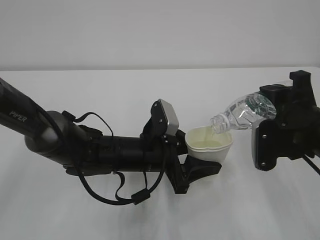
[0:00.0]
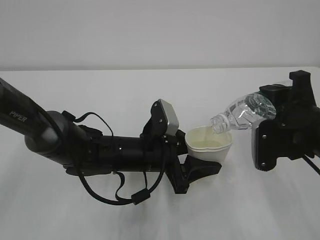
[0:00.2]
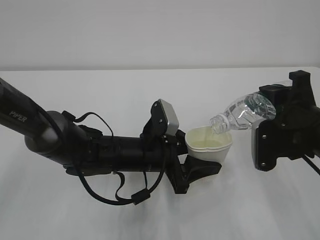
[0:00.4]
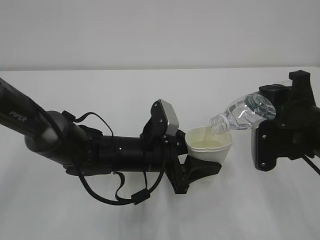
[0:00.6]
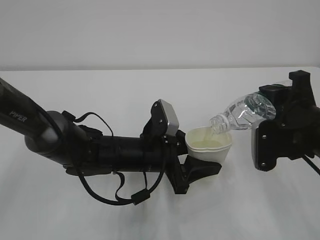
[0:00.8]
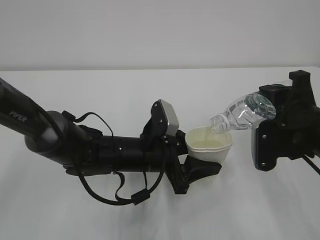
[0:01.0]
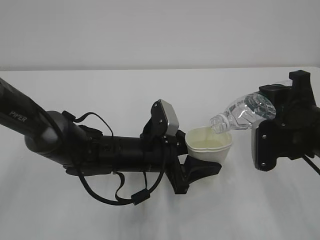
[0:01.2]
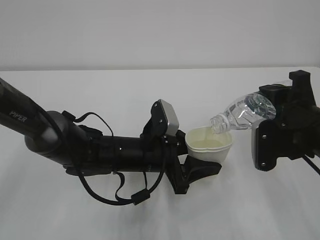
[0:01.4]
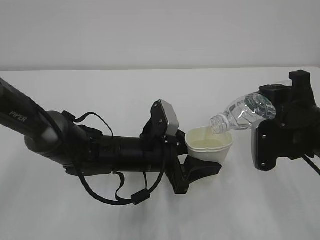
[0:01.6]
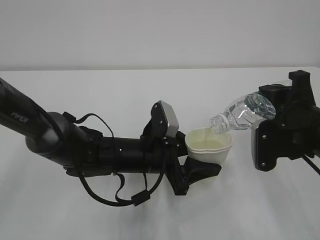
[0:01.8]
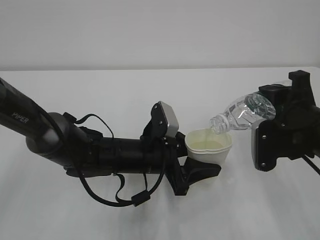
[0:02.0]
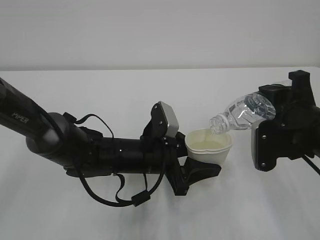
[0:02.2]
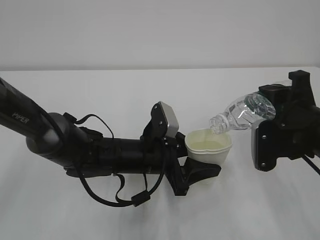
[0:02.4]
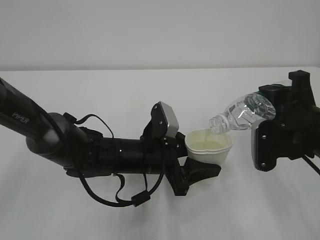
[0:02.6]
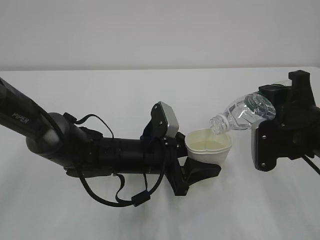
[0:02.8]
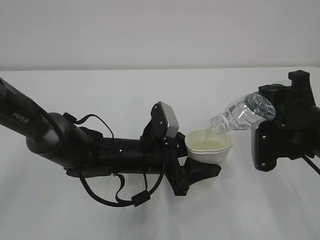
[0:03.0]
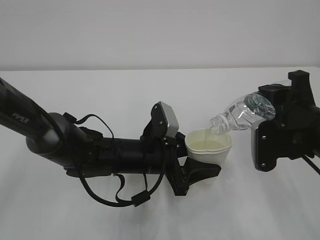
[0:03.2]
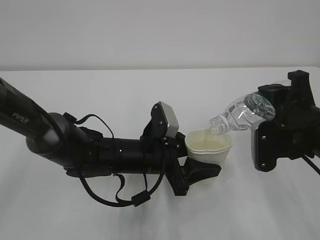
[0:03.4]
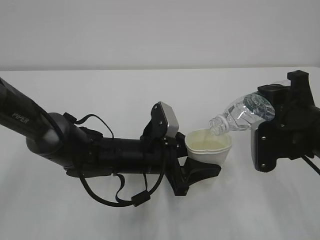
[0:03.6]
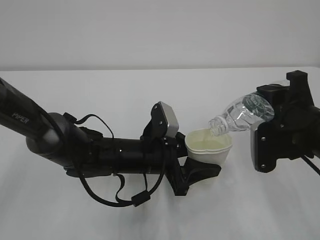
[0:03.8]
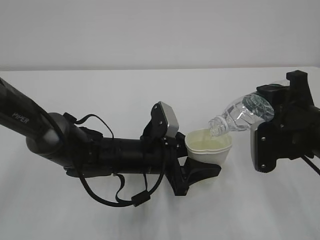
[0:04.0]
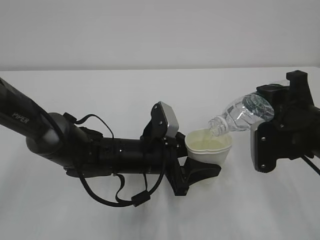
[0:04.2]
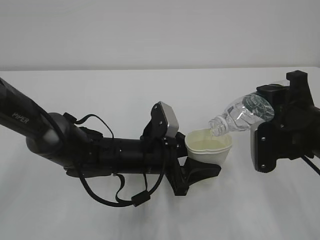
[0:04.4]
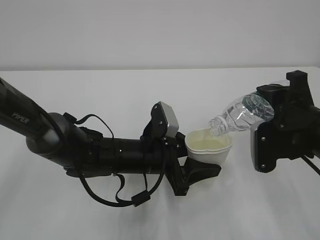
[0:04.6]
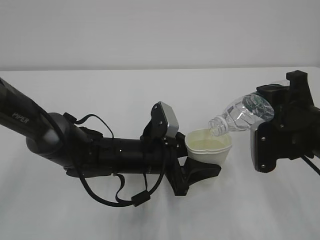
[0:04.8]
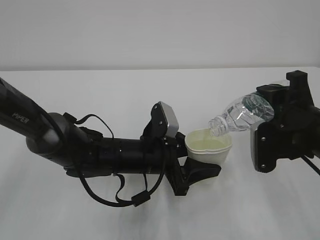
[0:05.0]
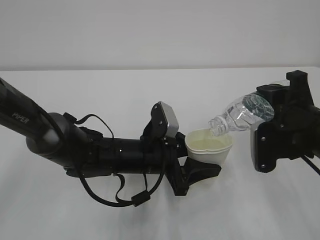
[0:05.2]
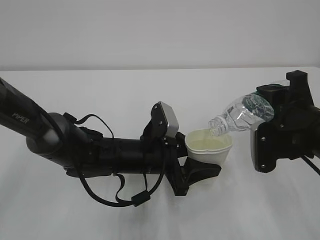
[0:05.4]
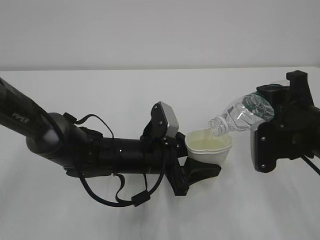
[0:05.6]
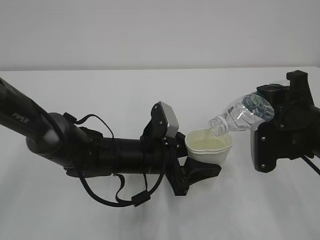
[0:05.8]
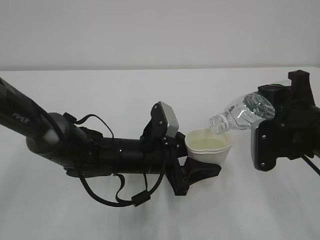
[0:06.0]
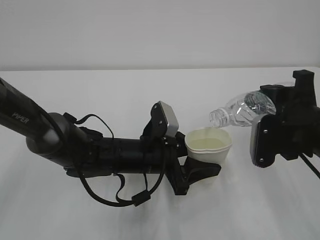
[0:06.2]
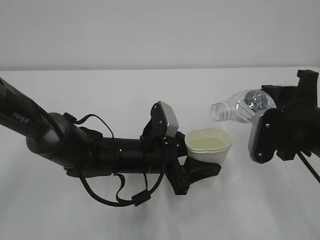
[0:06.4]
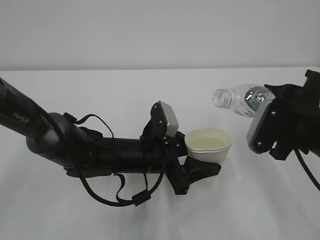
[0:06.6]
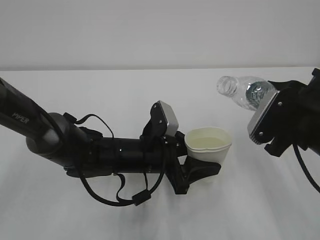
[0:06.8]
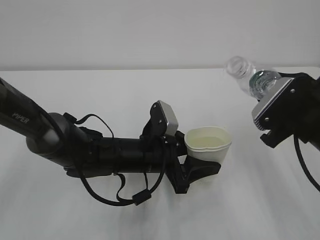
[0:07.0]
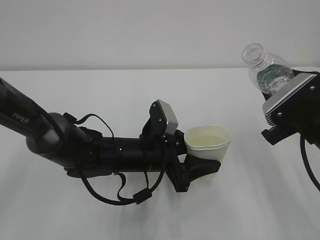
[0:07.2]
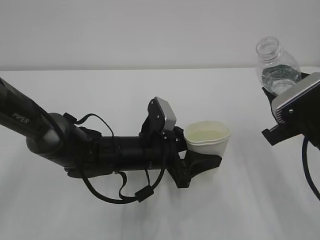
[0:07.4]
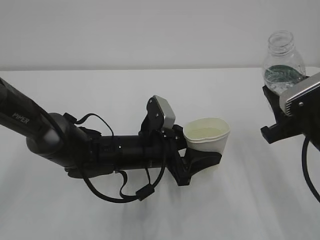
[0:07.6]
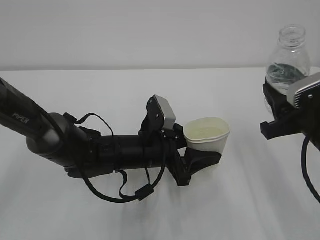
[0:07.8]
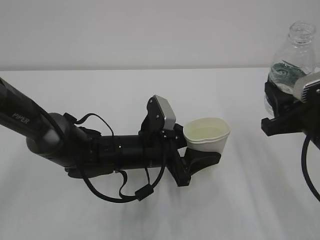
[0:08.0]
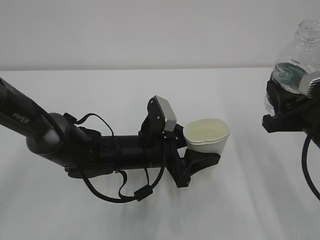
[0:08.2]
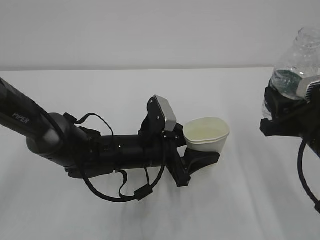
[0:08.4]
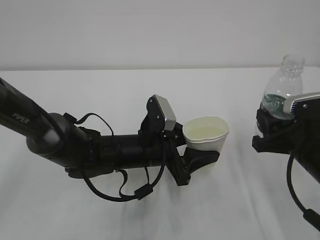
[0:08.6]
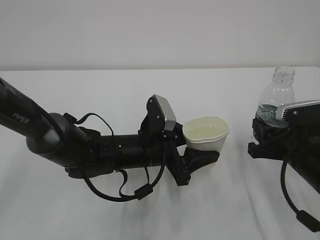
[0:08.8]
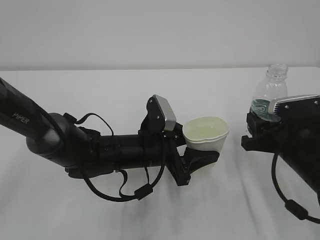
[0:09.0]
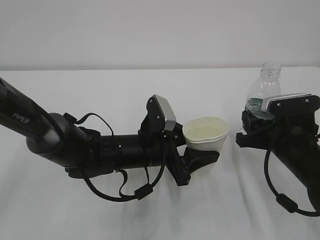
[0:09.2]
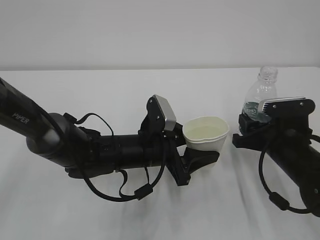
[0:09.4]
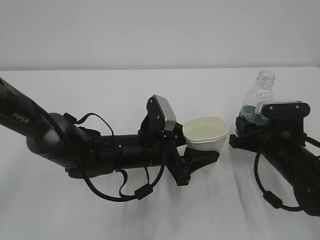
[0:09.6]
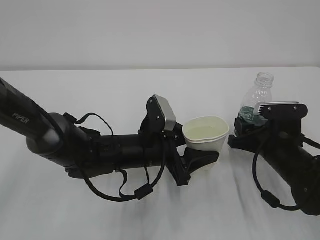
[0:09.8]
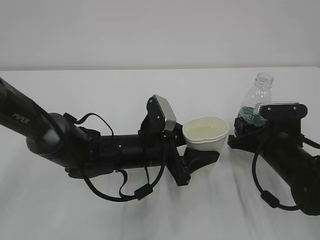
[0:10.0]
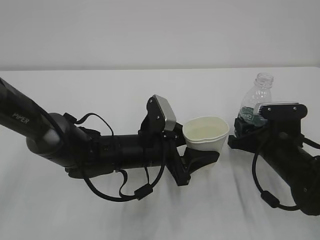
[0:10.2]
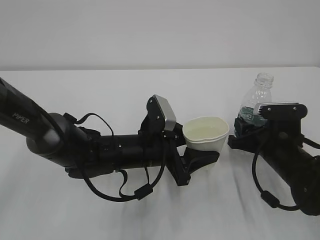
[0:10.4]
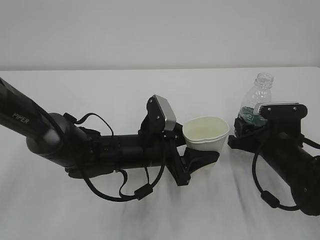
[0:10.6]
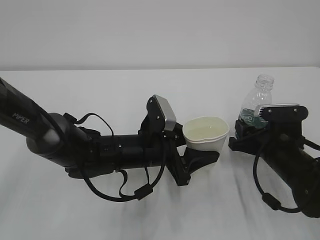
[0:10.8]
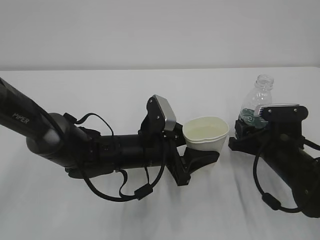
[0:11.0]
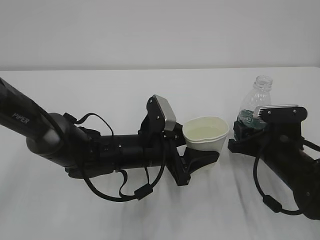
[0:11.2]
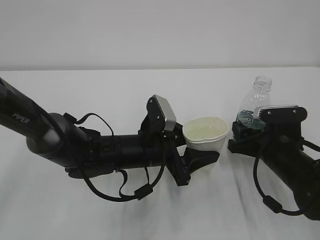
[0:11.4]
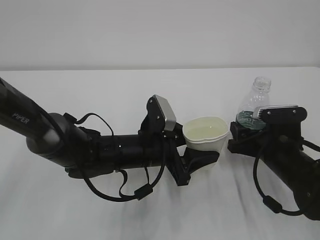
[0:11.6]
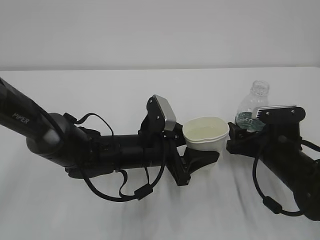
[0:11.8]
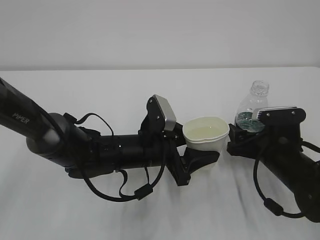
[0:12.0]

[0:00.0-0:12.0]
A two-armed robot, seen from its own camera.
0:00.0 to 0:06.0: Neither gripper changes place.
0:07.6 to 0:09.0: The right gripper travels downward by about 5 cm.
0:09.0 to 0:10.4: The grippers stay close to where they were, moving slightly.
0:10.4 to 0:12.0: The right gripper opens.

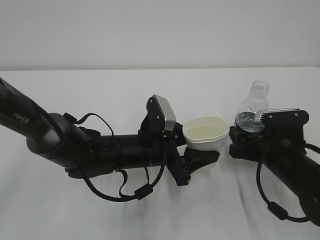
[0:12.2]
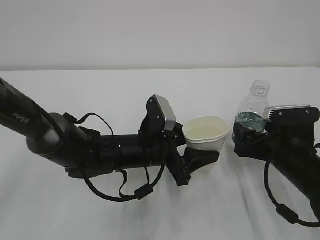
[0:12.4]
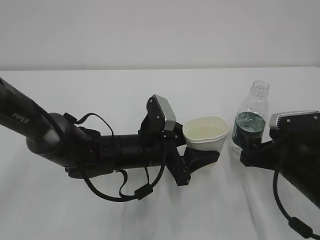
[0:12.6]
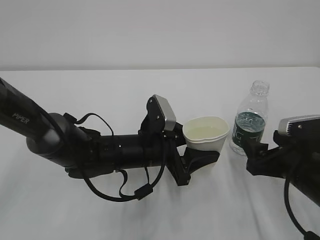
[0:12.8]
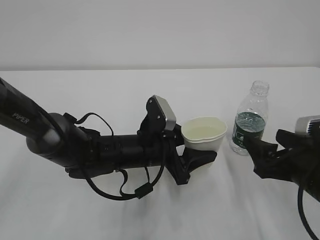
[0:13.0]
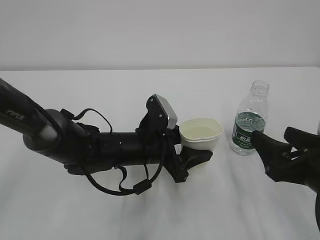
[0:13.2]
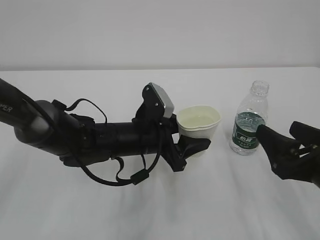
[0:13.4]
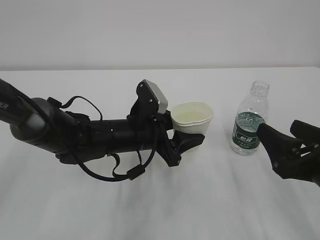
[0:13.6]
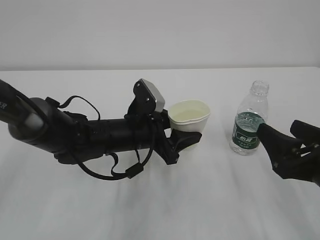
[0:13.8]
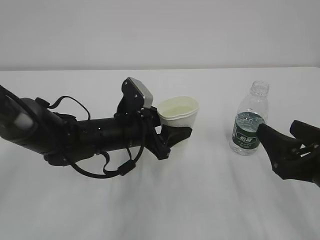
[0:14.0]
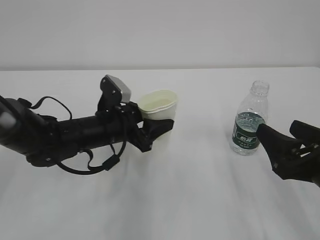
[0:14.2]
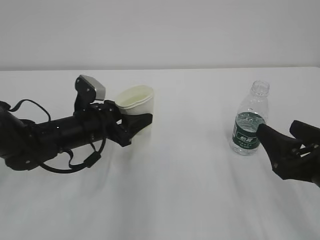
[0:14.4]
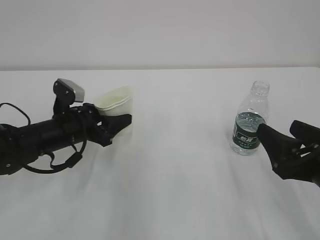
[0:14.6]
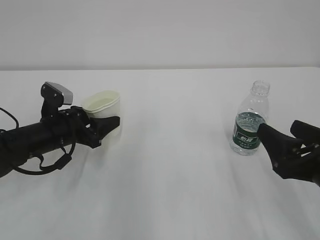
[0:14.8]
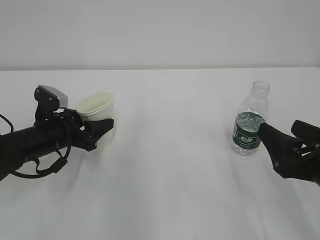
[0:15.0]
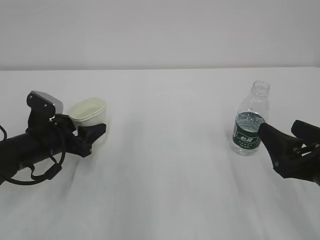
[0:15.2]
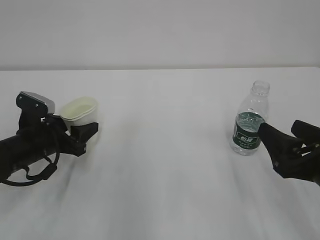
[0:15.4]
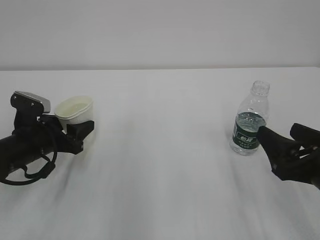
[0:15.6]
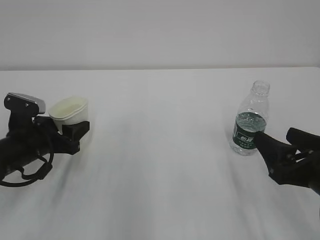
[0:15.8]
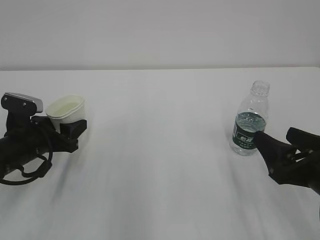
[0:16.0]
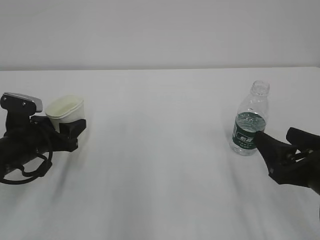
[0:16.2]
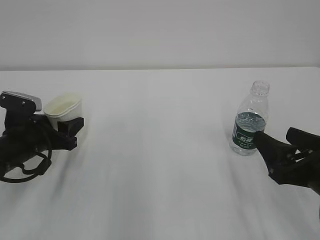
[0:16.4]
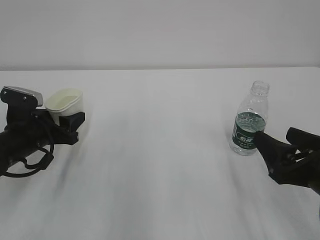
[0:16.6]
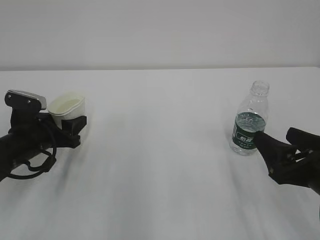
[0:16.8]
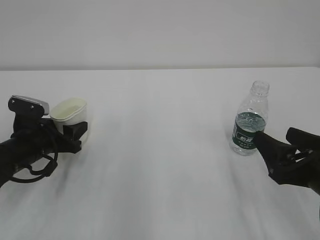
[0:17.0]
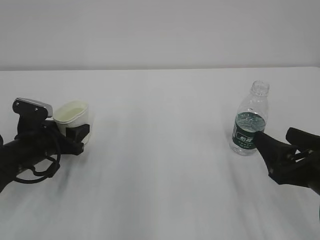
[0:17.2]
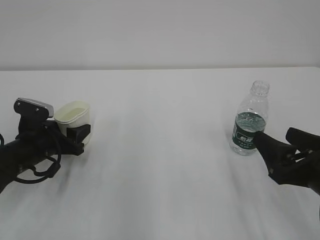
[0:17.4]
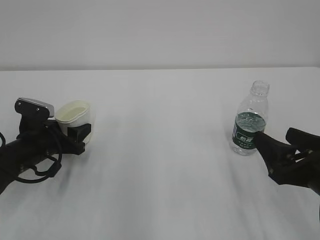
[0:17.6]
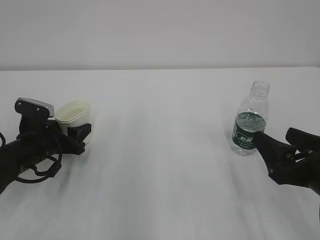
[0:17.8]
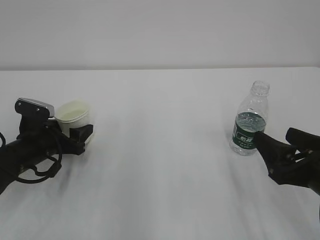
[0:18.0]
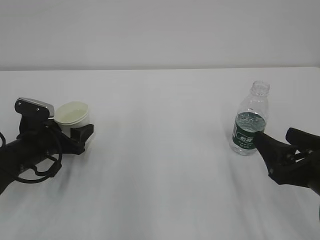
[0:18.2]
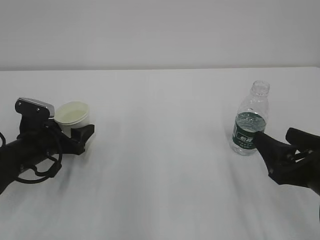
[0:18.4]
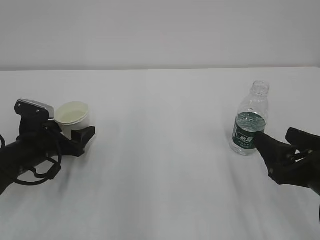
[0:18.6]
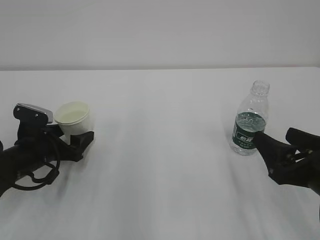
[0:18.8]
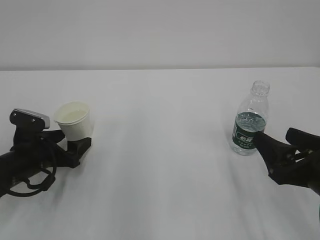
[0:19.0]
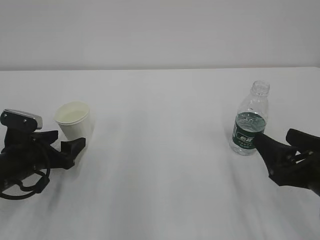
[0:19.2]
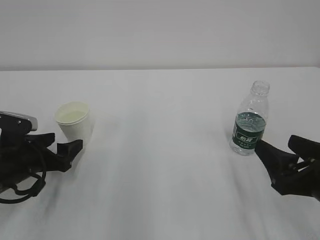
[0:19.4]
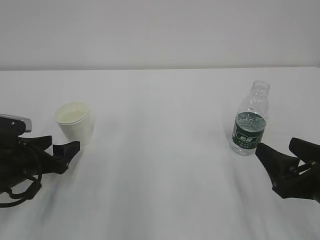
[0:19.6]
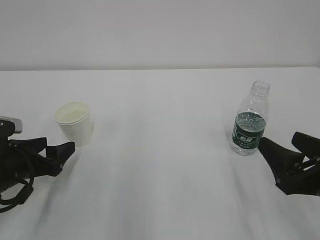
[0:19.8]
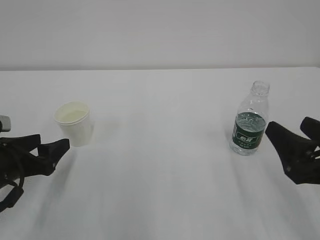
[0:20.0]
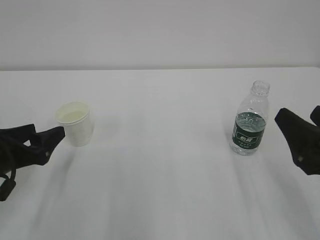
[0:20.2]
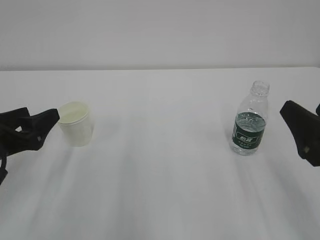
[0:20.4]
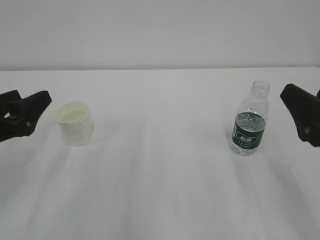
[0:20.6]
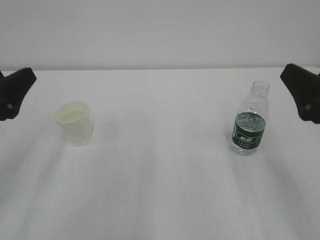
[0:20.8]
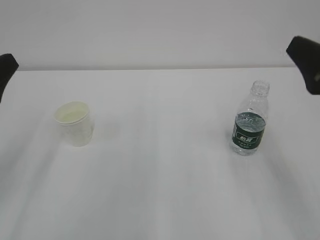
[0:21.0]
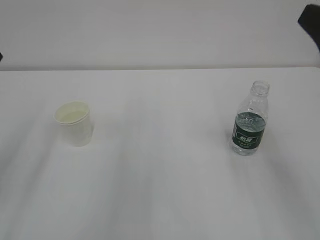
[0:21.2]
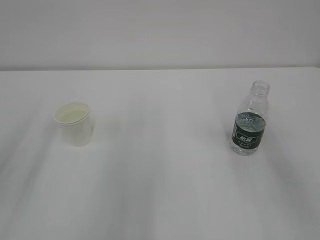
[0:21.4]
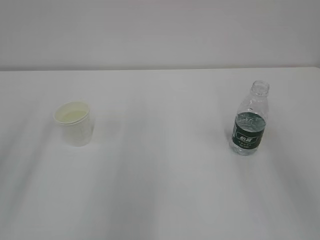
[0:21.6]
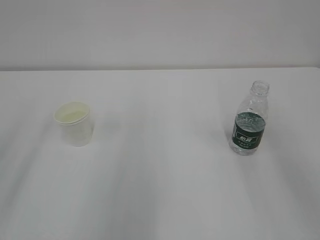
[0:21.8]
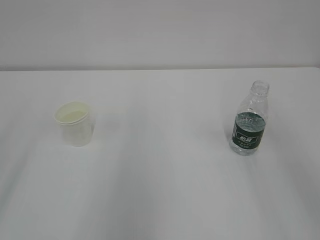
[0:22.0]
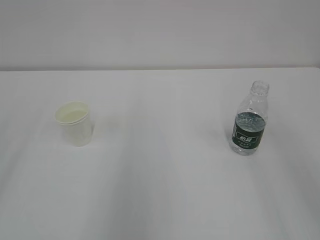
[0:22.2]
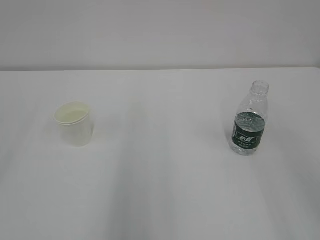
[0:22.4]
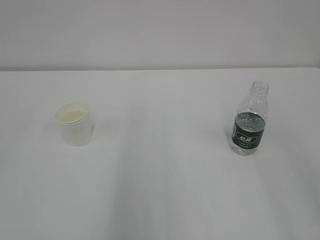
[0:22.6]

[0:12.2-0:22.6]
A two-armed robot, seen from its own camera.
0:12.2 to 0:13.6: The right gripper is displaced backward and upward by about 15 cm.
0:13.6 to 0:15.2: The left gripper goes roughly 15 cm to the left.
0:15.2 to 0:16.6: There are only small adjustments of the grippers.
0:16.6 to 0:18.2: The left gripper opens up.
0:18.2 to 0:19.6: The left gripper shifts about 5 cm backward.
0:19.6 to 0:21.2: The left gripper heads upward and backward, covering roughly 20 cm, while the right gripper goes some 15 cm upward.
0:21.2 to 0:22.6: The right gripper goes about 15 cm backward and upward.
